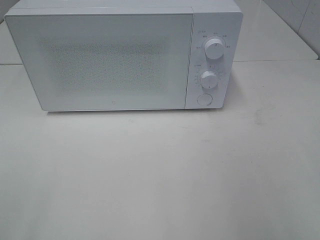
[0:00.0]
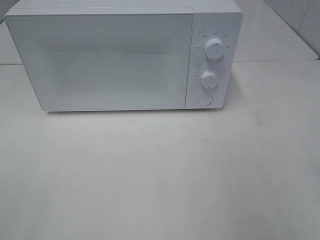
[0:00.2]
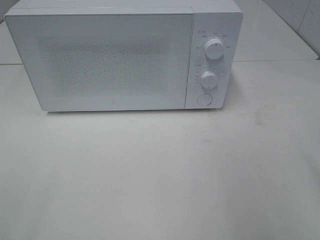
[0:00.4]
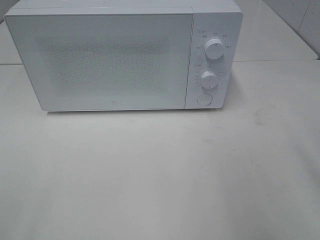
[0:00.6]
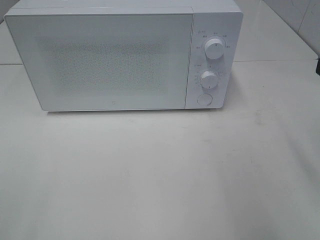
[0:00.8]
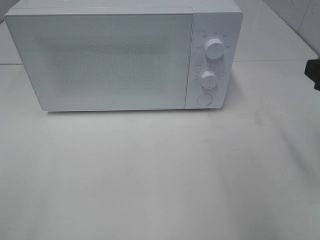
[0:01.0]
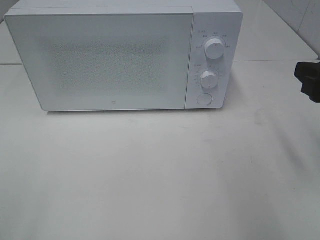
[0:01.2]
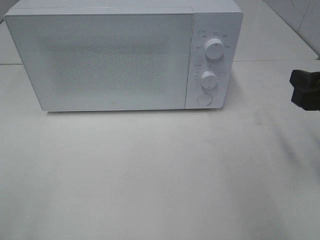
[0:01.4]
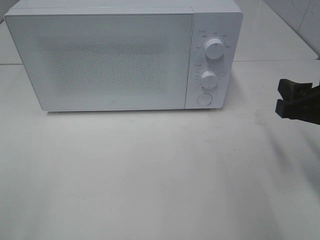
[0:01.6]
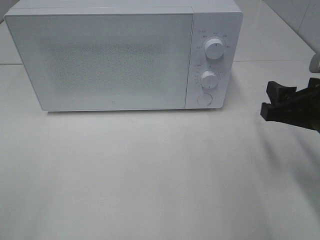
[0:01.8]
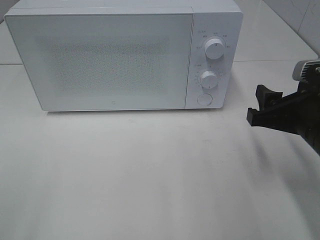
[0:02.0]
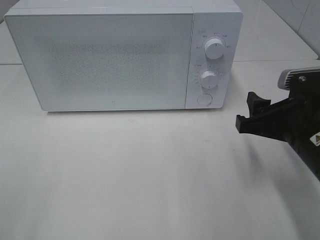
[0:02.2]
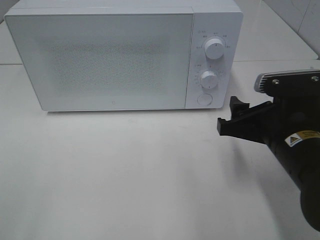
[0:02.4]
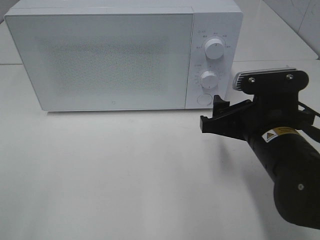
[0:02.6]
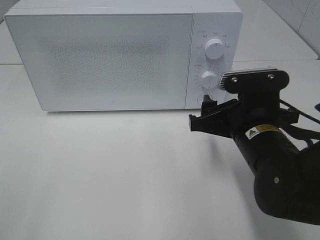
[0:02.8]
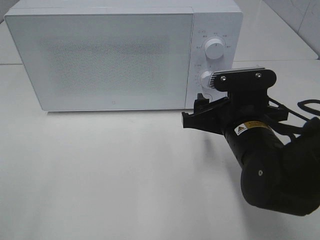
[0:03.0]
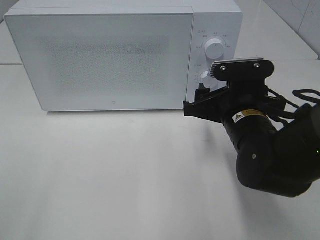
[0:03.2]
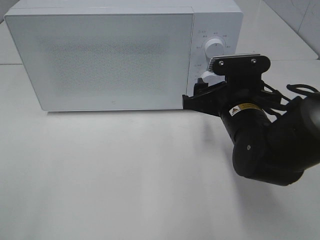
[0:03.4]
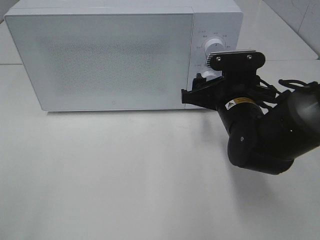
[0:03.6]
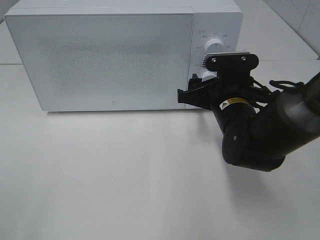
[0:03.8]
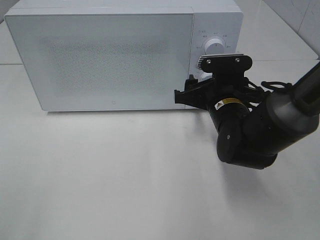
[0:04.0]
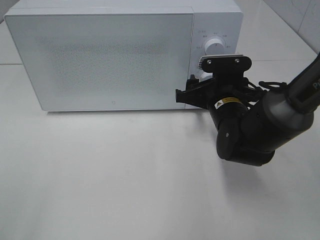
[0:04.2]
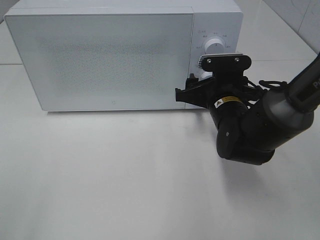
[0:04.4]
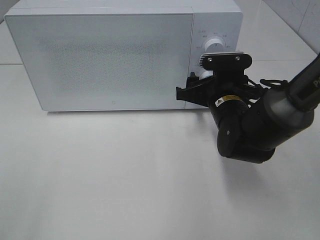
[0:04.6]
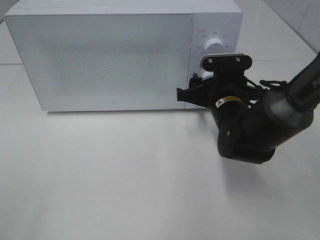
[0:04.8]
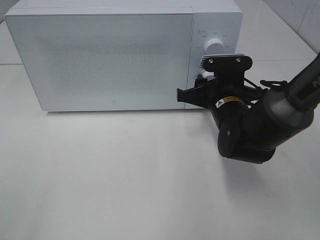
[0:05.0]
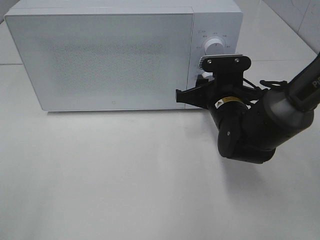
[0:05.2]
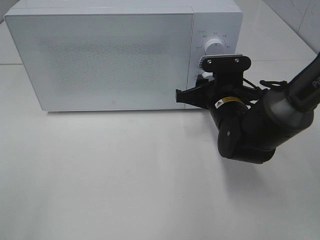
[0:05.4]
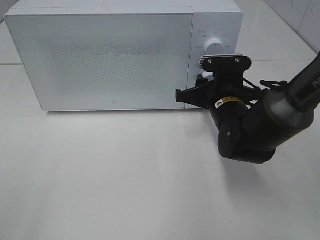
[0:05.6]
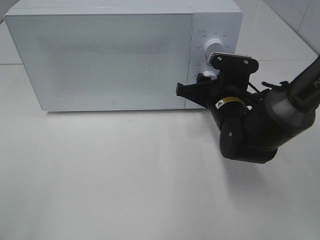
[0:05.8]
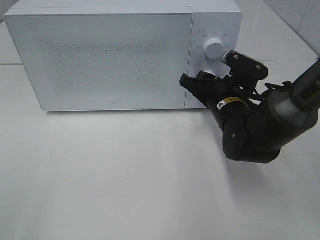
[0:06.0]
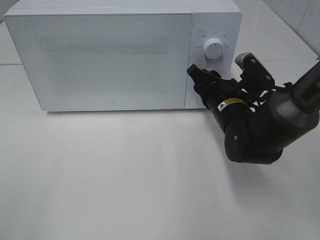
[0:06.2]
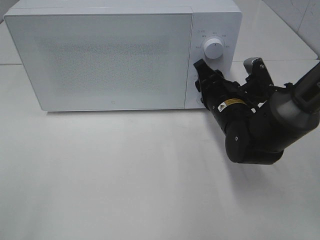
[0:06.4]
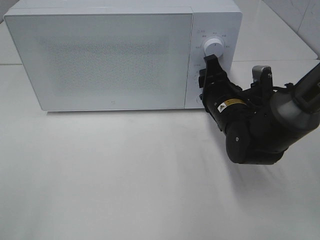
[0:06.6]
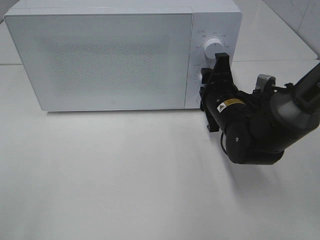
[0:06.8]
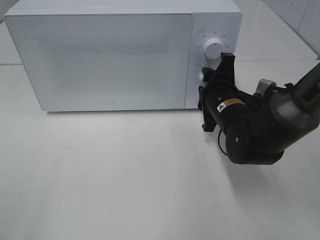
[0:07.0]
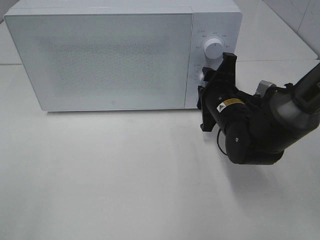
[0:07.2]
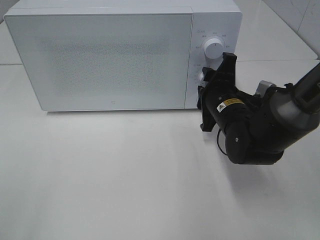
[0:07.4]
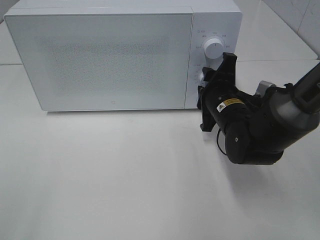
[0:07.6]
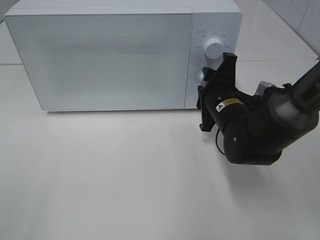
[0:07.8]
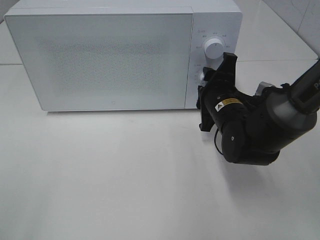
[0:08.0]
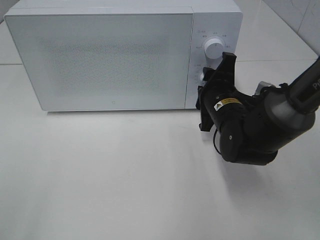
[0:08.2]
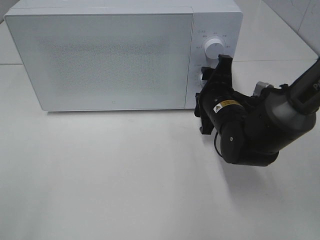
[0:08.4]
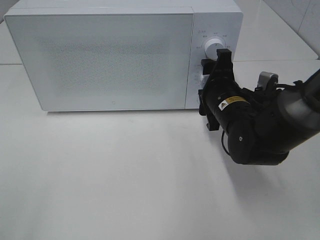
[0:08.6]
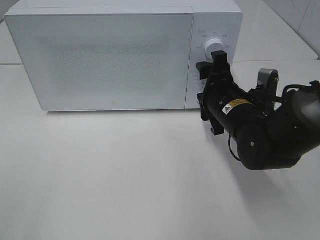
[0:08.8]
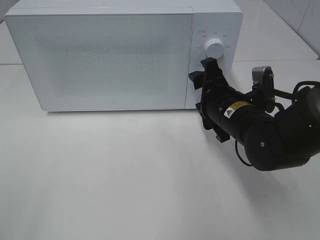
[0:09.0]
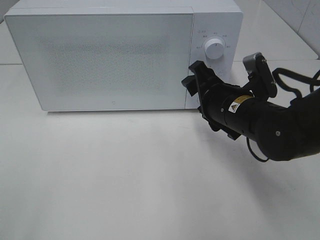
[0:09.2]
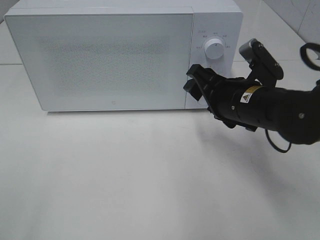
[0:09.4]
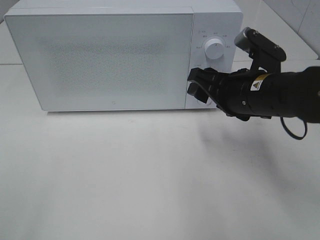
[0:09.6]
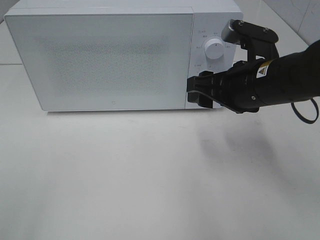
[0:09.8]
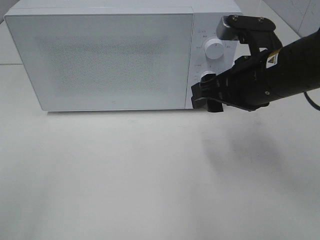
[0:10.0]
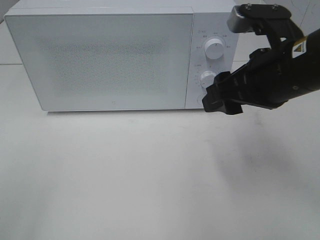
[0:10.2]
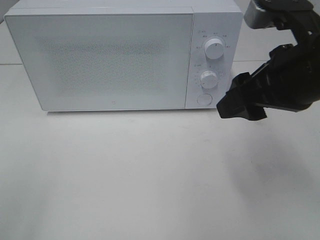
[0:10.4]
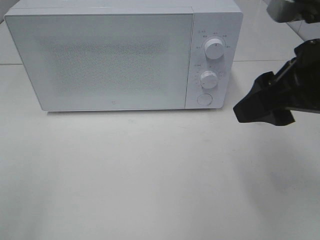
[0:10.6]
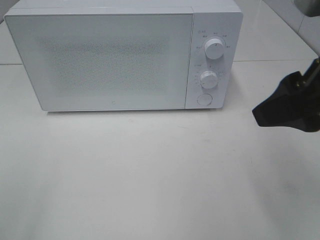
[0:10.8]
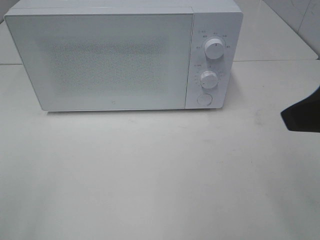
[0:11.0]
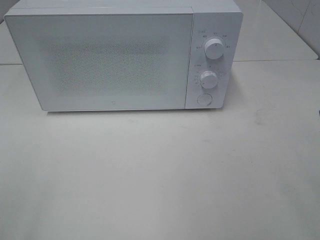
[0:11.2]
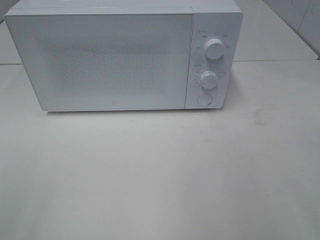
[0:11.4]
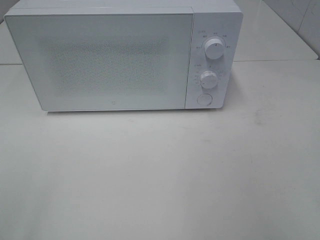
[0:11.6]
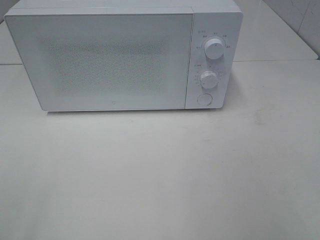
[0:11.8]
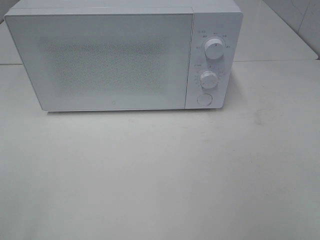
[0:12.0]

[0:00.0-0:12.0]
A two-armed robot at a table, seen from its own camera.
Task of the whole recording: Heat the burger.
Step, 0:00.0 to 0:08.6: Right hand: twist timer button.
0:00.0 to 0:01.6: The right gripper goes roughly 15 cm forward and downward.
0:01.6 to 0:03.0: The right gripper goes roughly 15 cm to the left and downward.
0:03.0 to 0:04.4: The right gripper shifts approximately 10 cm forward.
0:04.4 to 0:06.0: The right gripper closes its fingers.
0:09.0 to 0:10.4: The right gripper heads upward and backward, covering some 15 cm.
0:10.4 to 0:12.0: The right gripper goes some 25 cm backward and to the right.

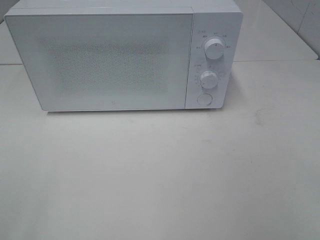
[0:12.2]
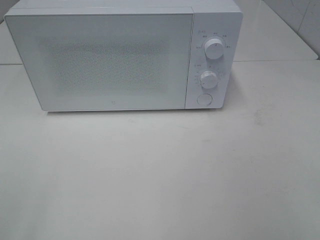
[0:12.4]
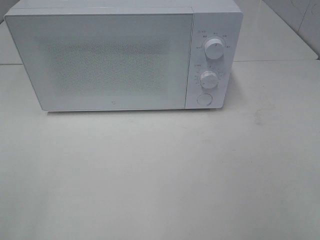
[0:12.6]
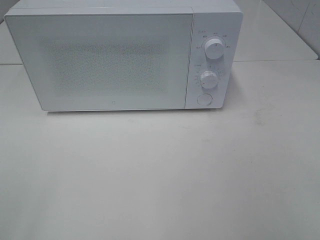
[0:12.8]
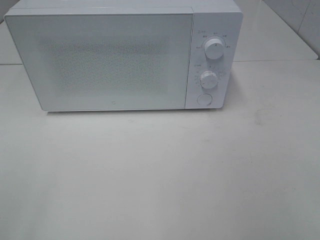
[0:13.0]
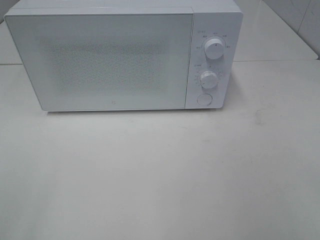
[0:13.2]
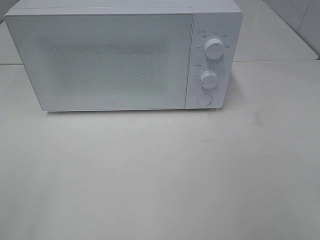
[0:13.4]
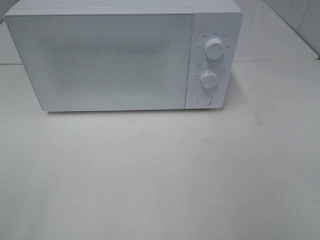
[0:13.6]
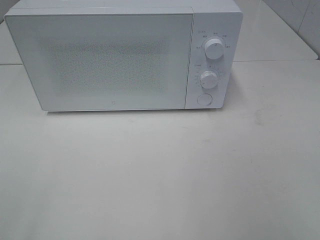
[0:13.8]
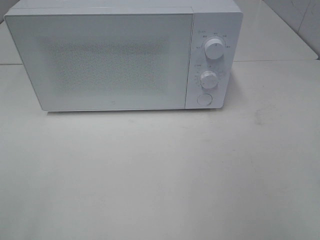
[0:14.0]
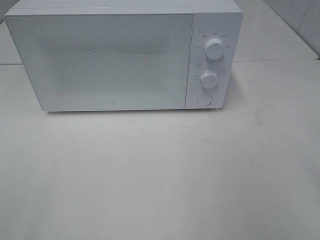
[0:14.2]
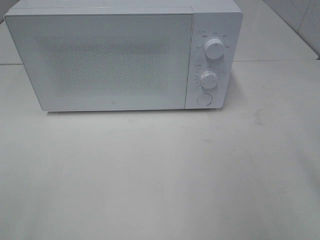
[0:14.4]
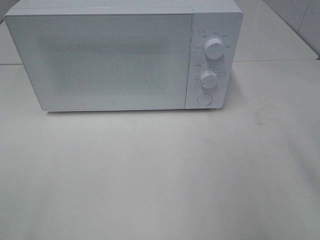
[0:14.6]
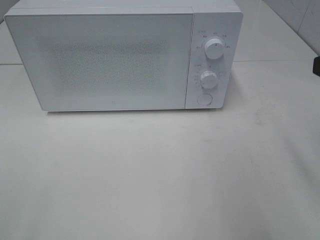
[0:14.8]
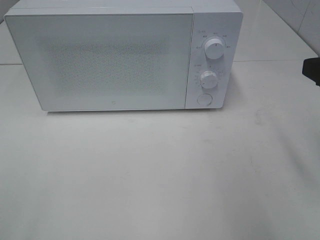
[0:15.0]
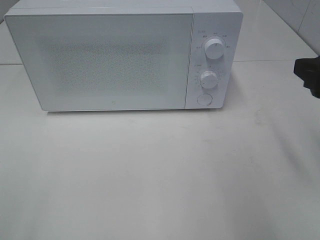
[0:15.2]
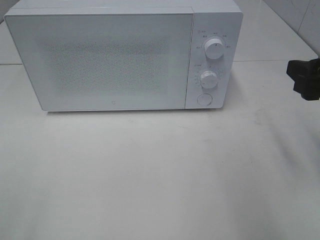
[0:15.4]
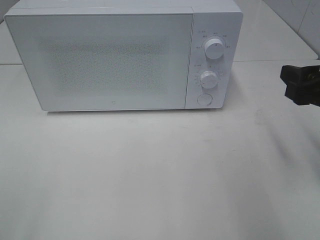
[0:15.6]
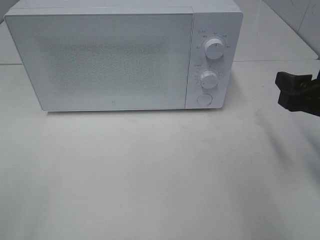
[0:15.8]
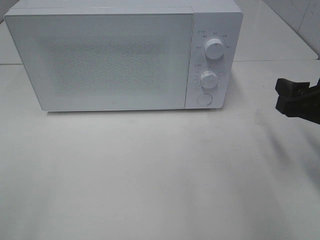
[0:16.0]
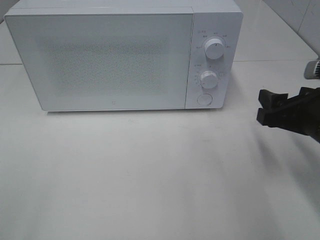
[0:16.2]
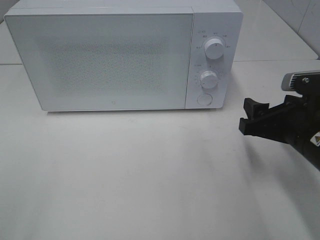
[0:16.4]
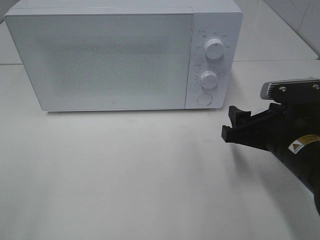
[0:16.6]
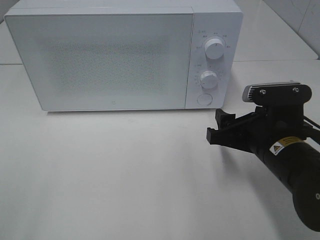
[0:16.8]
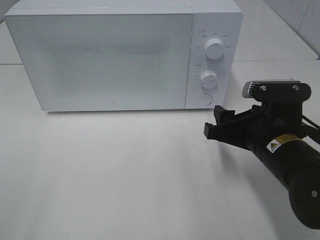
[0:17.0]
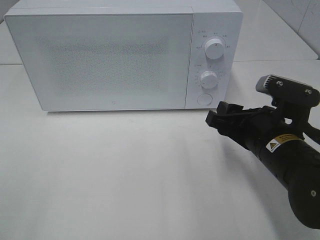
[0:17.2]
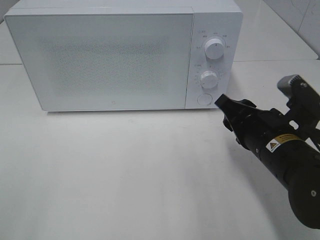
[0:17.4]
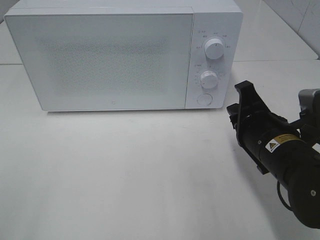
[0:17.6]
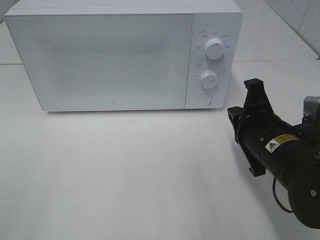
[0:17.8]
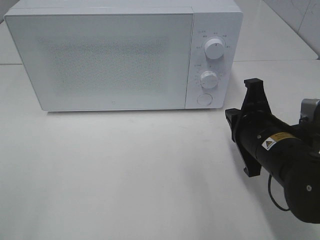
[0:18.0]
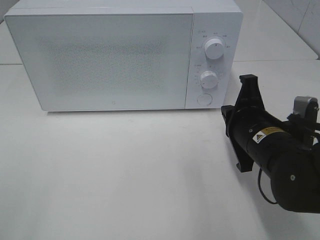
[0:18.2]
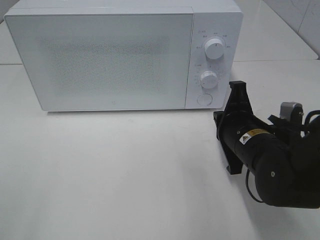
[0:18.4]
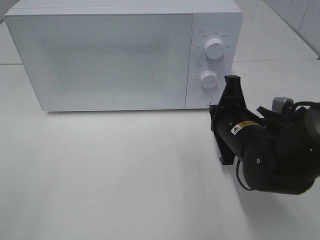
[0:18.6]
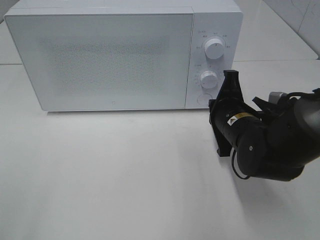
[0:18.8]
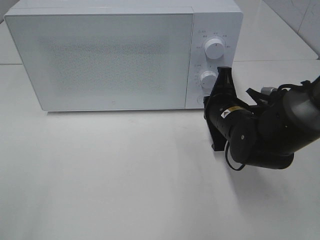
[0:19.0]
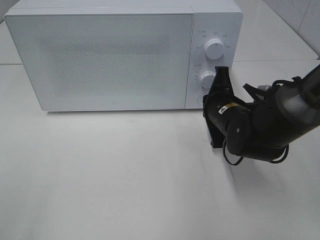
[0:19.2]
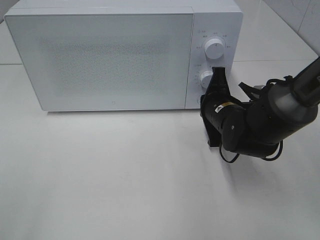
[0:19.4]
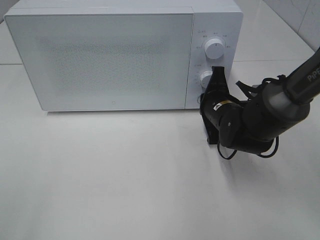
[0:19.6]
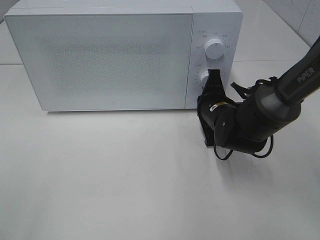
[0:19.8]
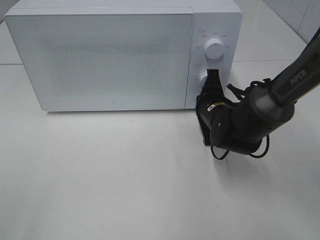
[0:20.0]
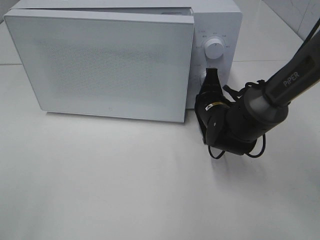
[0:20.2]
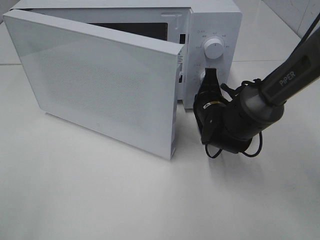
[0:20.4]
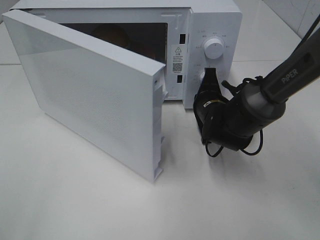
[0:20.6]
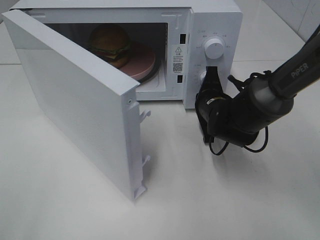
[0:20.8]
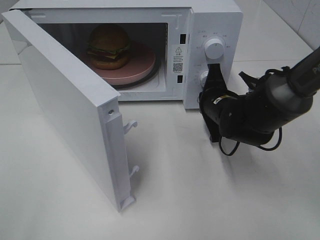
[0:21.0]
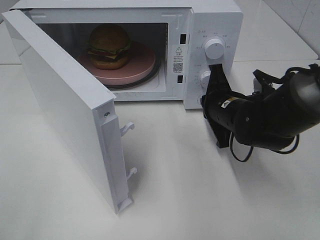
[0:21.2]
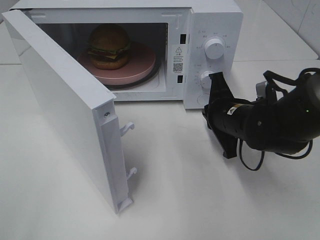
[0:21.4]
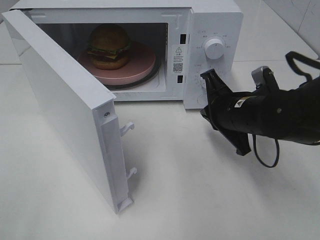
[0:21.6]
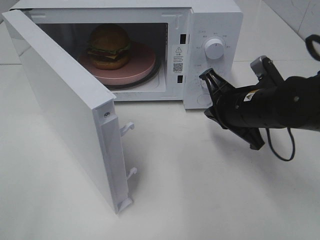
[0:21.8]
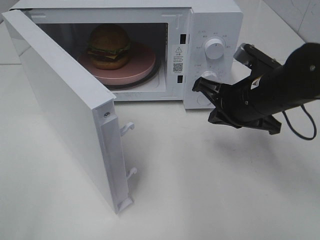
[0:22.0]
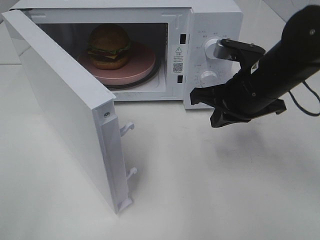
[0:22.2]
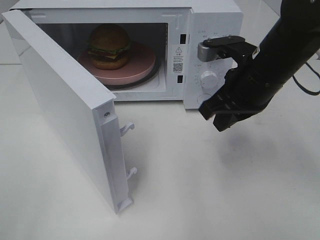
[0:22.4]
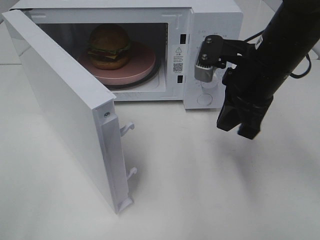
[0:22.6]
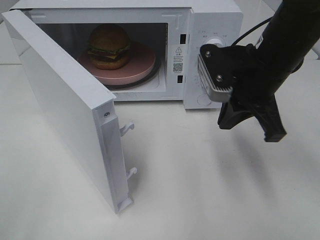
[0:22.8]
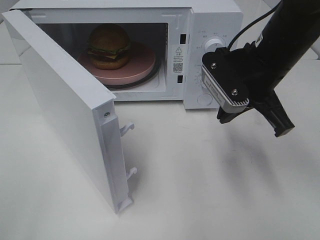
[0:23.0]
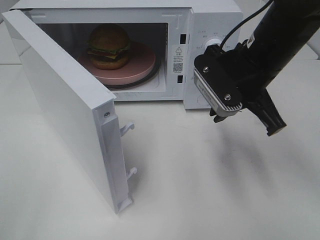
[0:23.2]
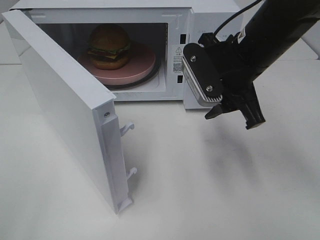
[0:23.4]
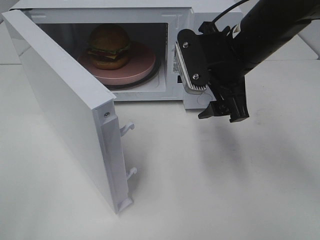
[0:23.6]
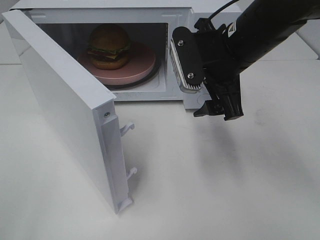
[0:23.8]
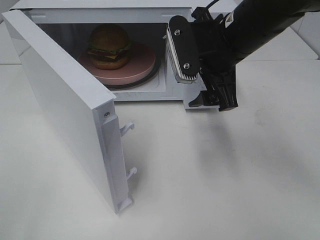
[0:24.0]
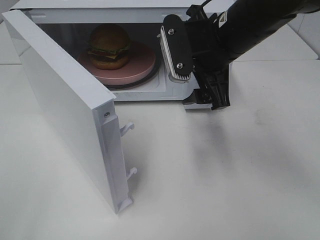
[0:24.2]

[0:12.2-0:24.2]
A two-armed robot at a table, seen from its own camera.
Task of the whole recording: Heat the burger.
Step, 0:12.2 to 0:21.6: Right hand: press the switch.
0:13.8 to 0:15.2: The right gripper heads forward, covering approximately 15 cm.
0:15.2 to 0:16.6: The right gripper shifts about 15 cm downward and to the left.
0:16.6 to 0:18.2: The right gripper closes.
0:18.2 to 0:19.8: The right gripper is displaced forward by about 10 cm.
0:21.2 to 0:22.6: The right gripper is displaced upward by about 10 cm.
0:22.6 to 0:24.2: The right gripper shifts roughly 5 cm to the left, and opens its fingers.
